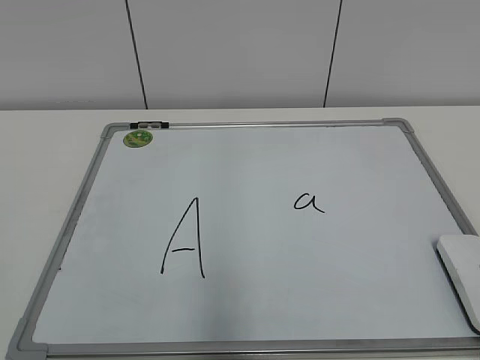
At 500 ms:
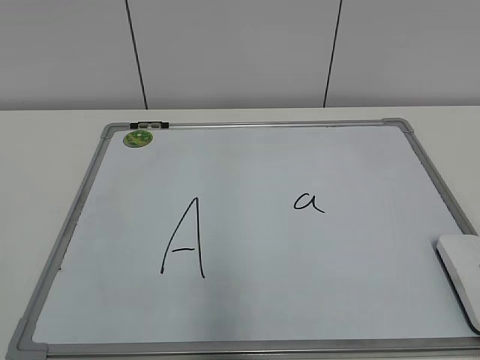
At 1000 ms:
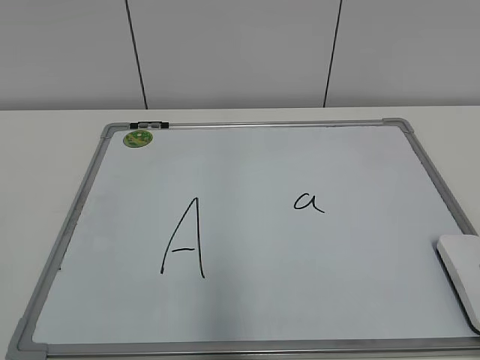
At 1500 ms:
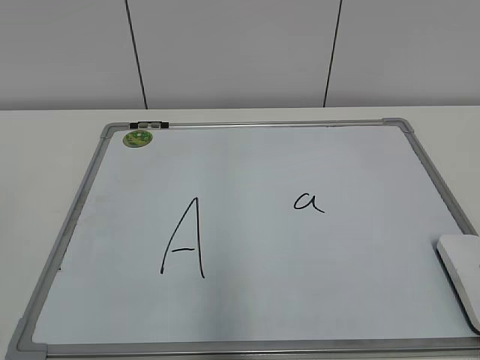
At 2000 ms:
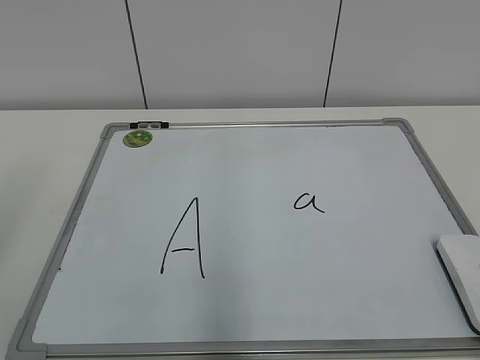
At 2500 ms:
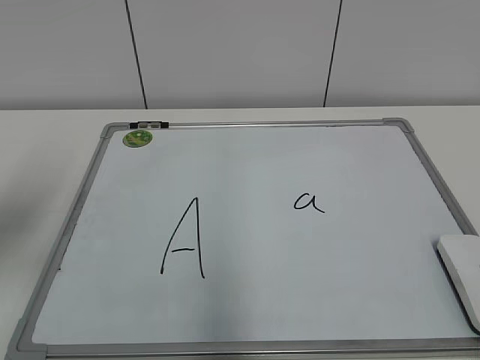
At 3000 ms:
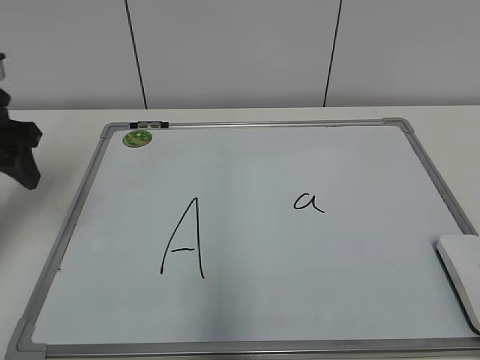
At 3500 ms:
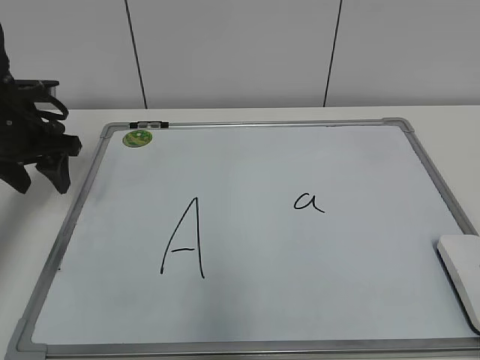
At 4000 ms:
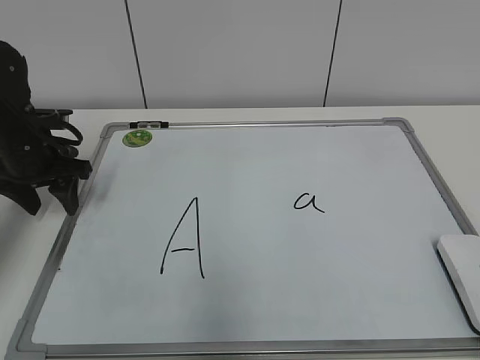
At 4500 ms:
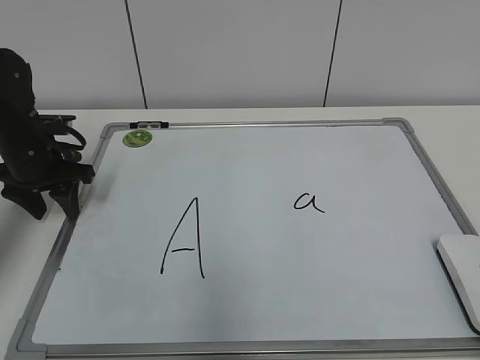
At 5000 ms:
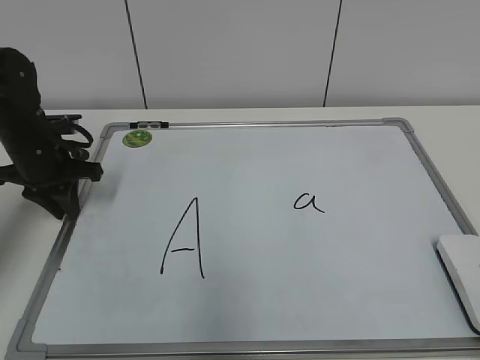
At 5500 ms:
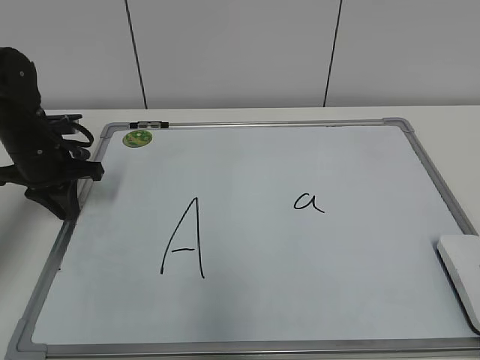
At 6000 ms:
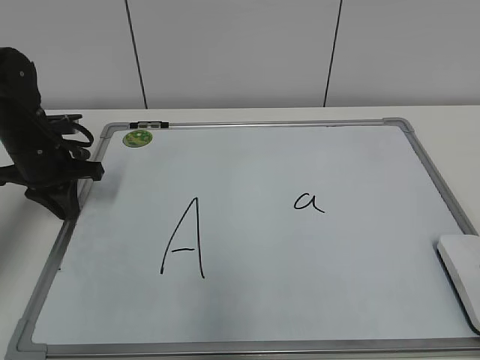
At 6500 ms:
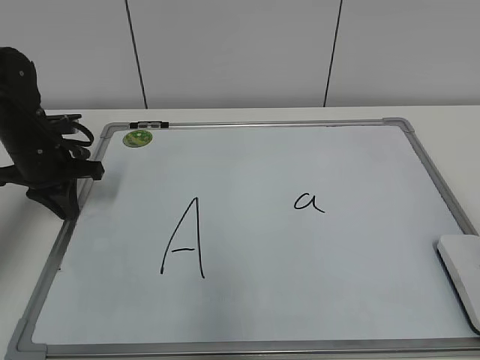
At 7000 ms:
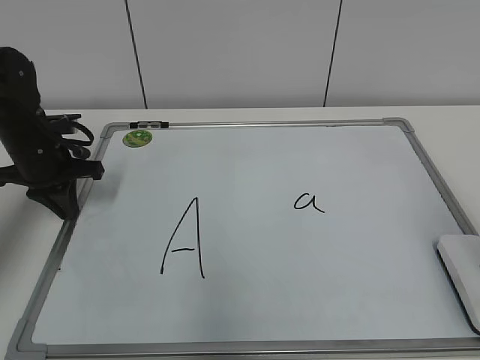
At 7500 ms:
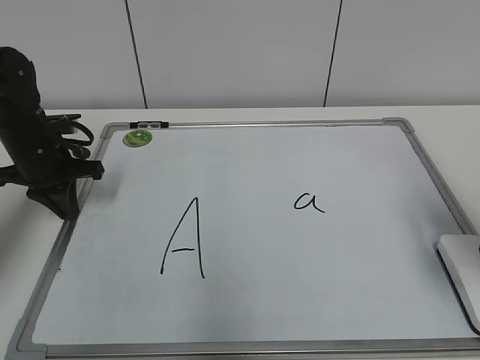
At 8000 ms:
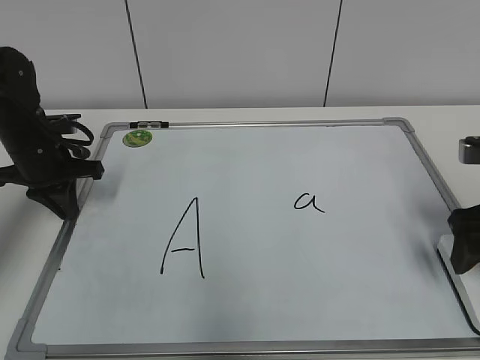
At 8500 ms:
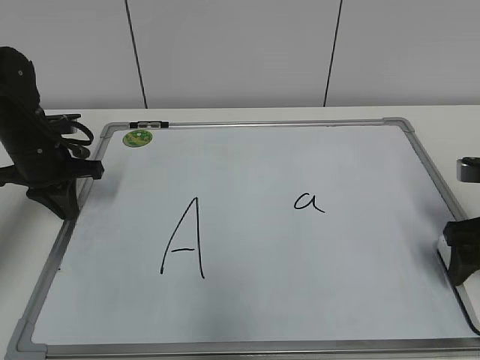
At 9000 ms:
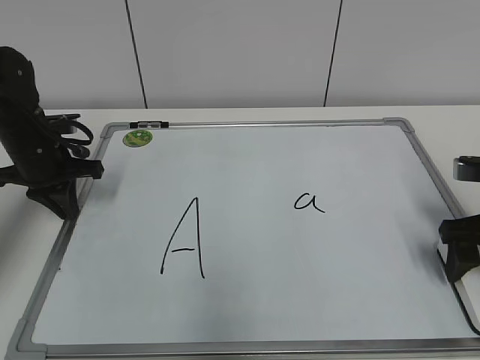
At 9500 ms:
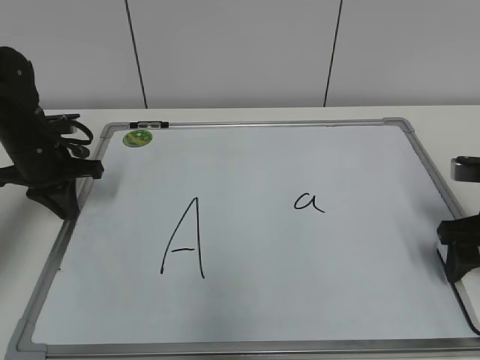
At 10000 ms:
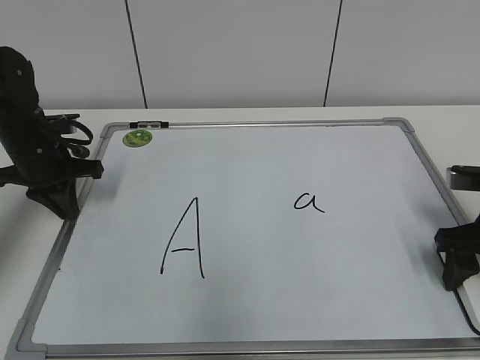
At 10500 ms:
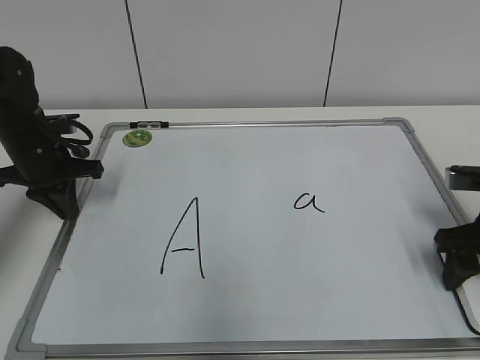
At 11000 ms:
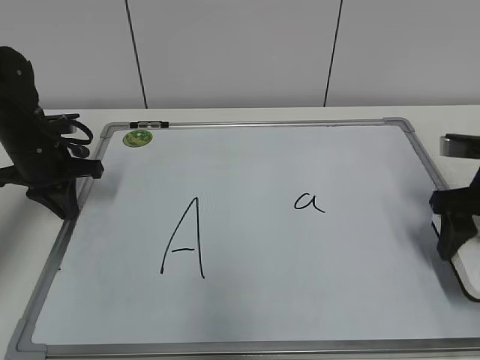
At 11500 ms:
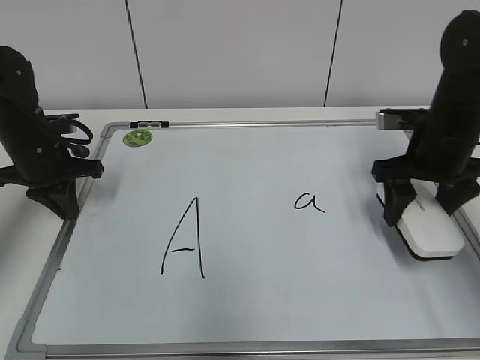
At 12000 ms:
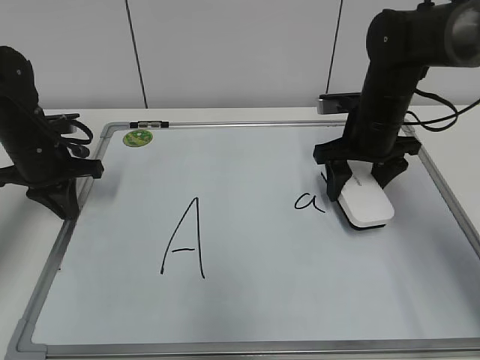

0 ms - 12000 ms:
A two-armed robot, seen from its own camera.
Task of the whole recording: pick up the eraser on the blackboard and erase the letter "a".
Step, 0 ms - 5500 ms: Hold the drawing board steady with your left hand.
Step, 6000 ms - 9000 ms: Grab the eraser with your right hand.
2000 ms - 4000 ms: The left gripper shifts approximately 35 cm forward and downward.
4000 ms - 6000 ms: The left gripper closes up.
6000 ms - 8000 ms: The right gripper travels forward by about 25 cm, and opens.
8000 ms - 10000 ms: The right gripper is displaced downward by roughly 5 cm, and closes up.
10000 ms - 12000 ms: The right gripper is displaced forward and to the left by roughly 15 cm.

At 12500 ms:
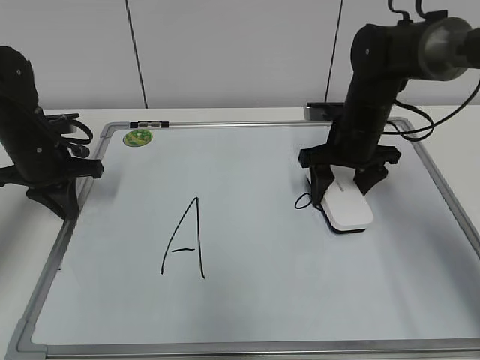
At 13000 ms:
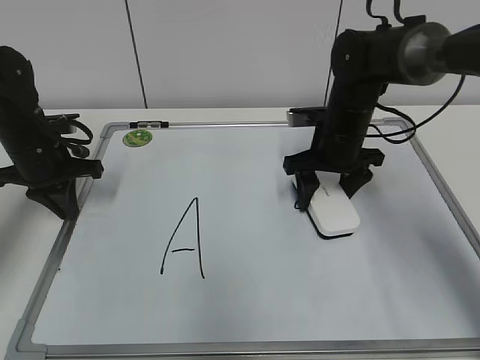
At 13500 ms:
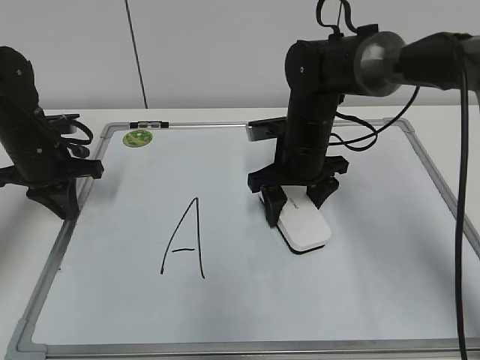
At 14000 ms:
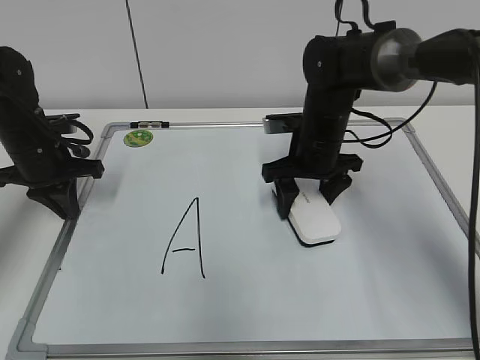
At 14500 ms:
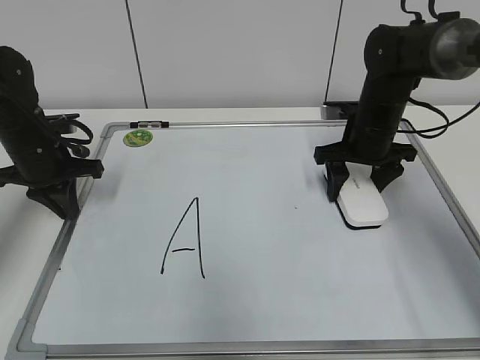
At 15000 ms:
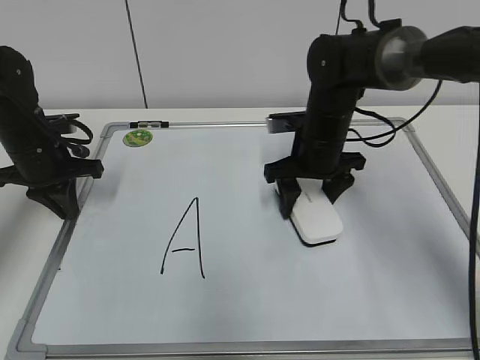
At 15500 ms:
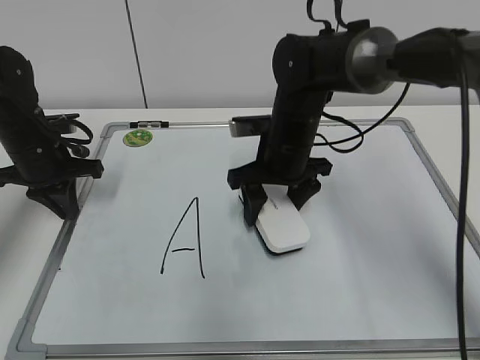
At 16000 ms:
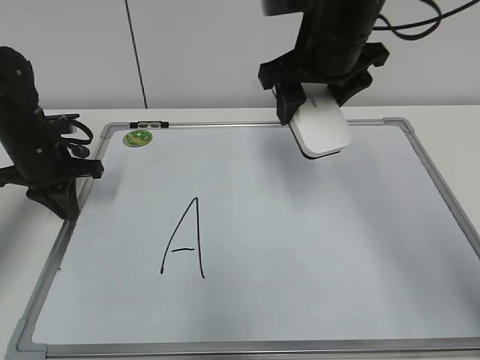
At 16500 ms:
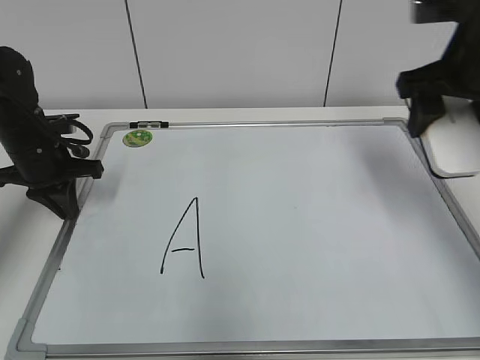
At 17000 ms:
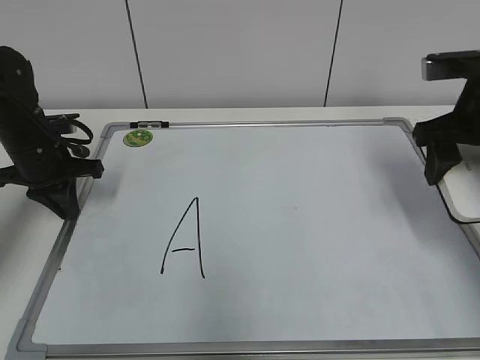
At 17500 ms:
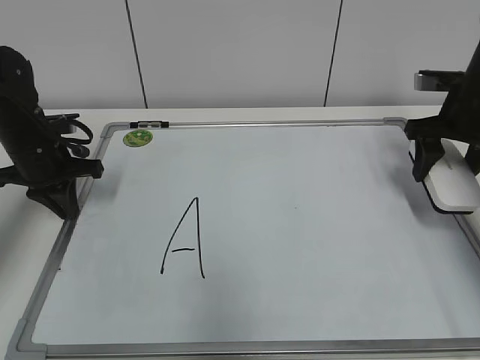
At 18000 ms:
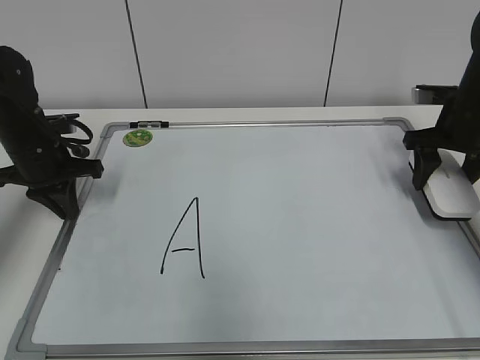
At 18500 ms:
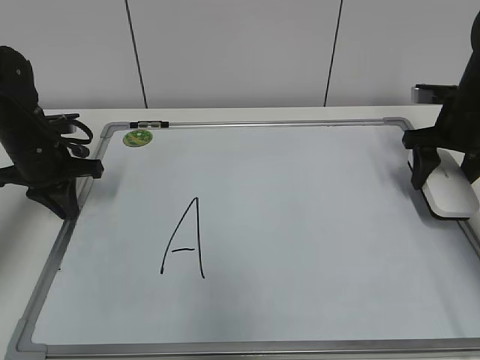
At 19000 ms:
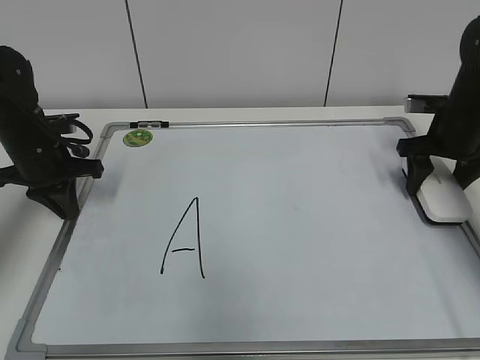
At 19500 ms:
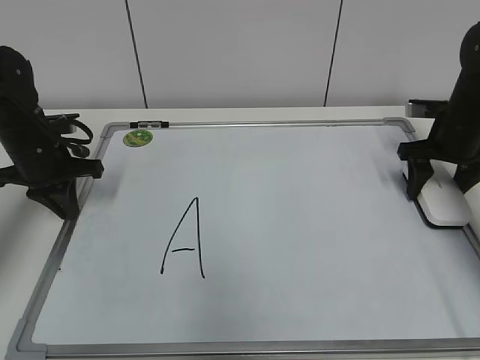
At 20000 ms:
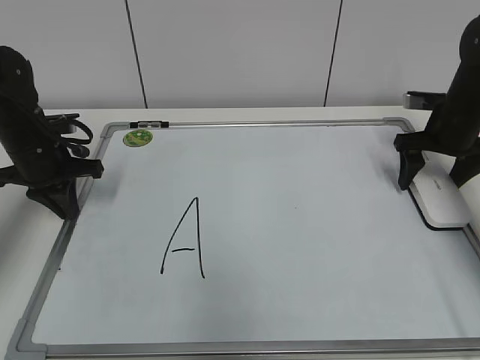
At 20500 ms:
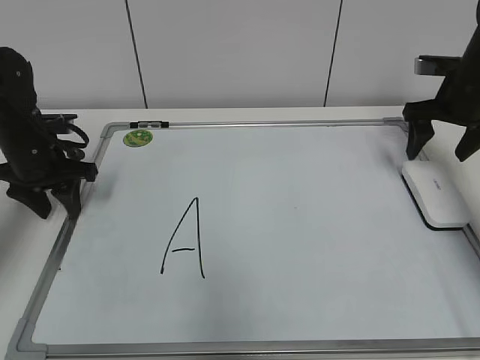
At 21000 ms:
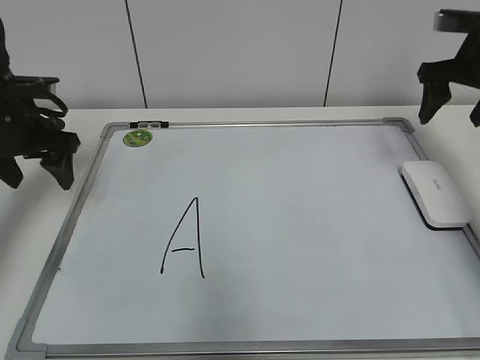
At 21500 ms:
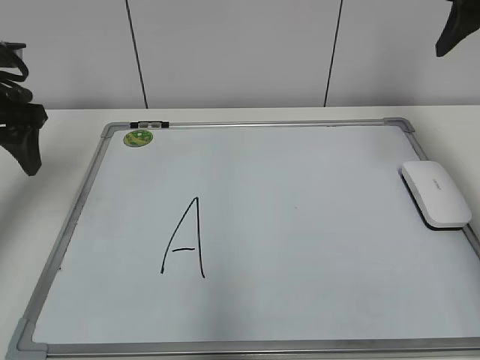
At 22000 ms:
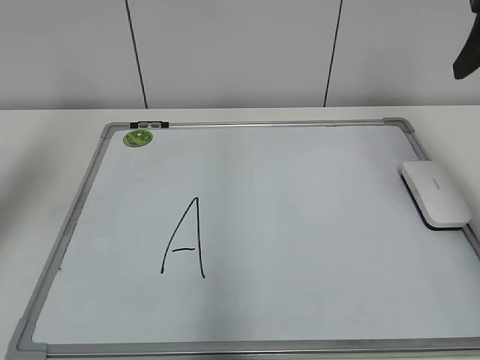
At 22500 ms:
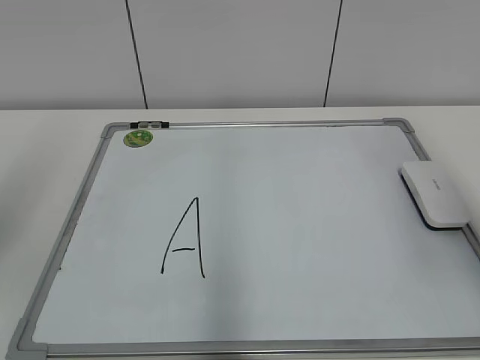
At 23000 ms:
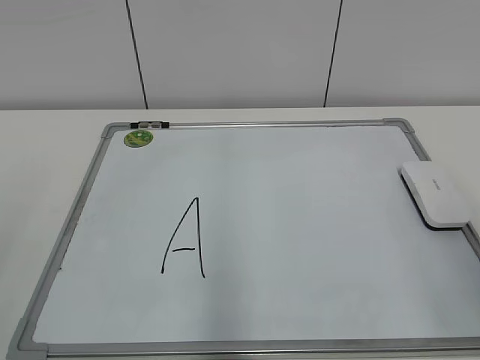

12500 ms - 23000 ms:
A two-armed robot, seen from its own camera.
Task of the whole recording: pick up the eraser on the blackboard and erase the letter "a".
Step, 12500 ms - 14500 ms: Erase the letter a with your right hand.
Step, 15000 ms - 19500 ms: Put down the eraser with your right hand.
12500 ms - 14500 ms: The right gripper travels to the left and back again, approximately 10 cm each way.
14500 ms - 16500 ms: The right gripper goes roughly 20 cm upward and backward.
16500 ms - 19000 ms: The right gripper heads downward, forward and to the right, covering roughly 20 cm.
19000 ms - 21000 ms: The right gripper is displaced upward by roughly 10 cm, and opens its fingers, while the left gripper heads upward, covering approximately 5 cm, and opens.
21000 ms - 23000 ms: The two grippers go roughly 35 cm backward. The right gripper closes up.

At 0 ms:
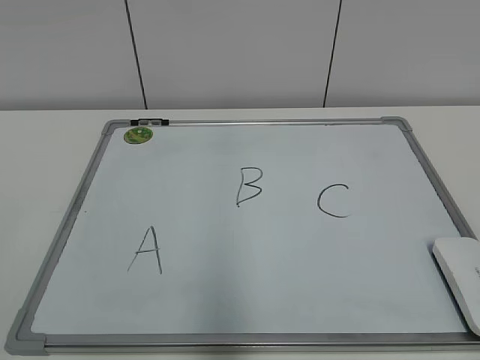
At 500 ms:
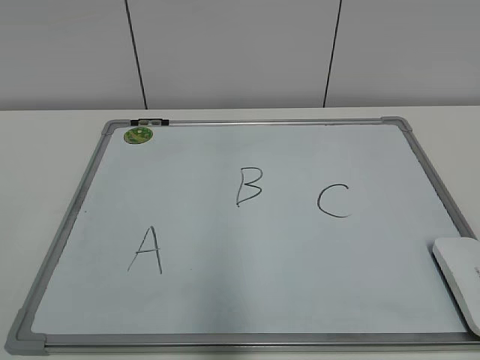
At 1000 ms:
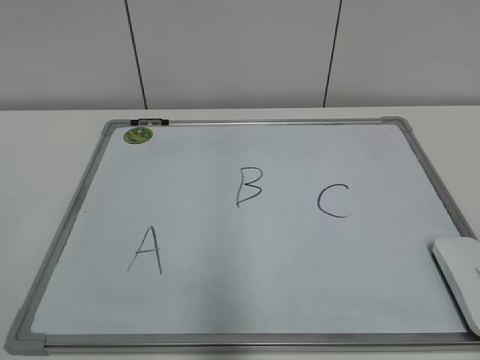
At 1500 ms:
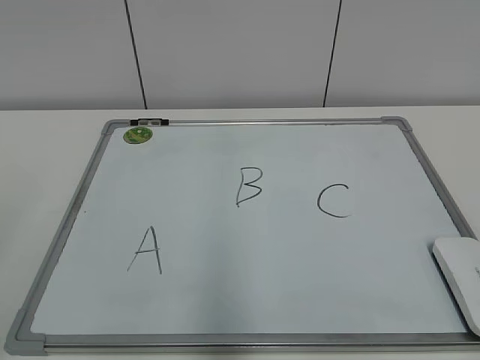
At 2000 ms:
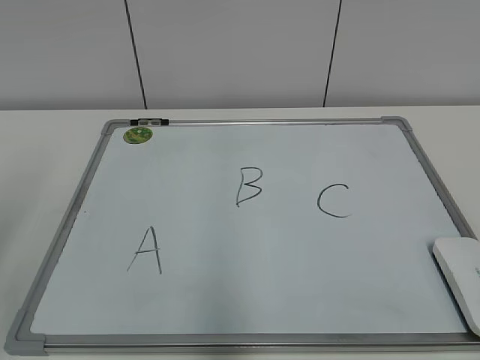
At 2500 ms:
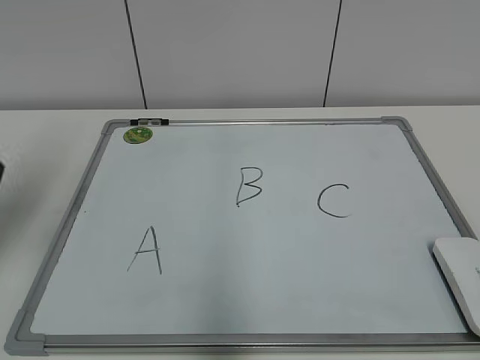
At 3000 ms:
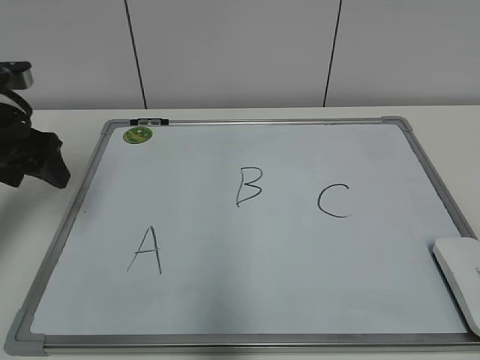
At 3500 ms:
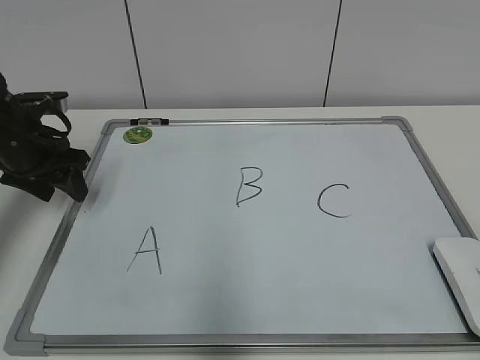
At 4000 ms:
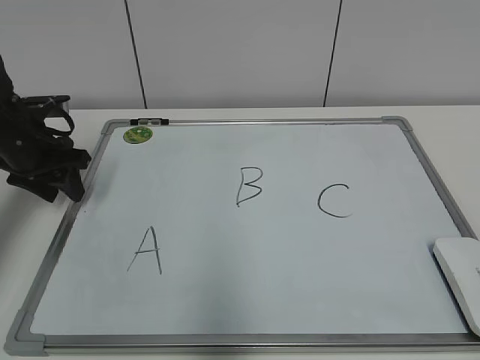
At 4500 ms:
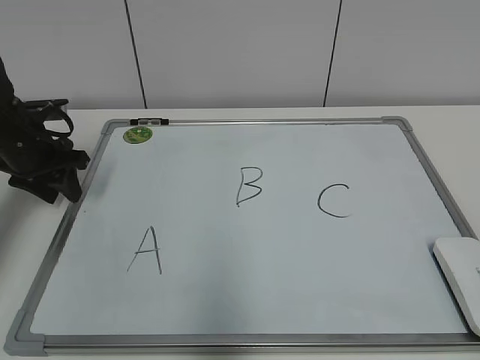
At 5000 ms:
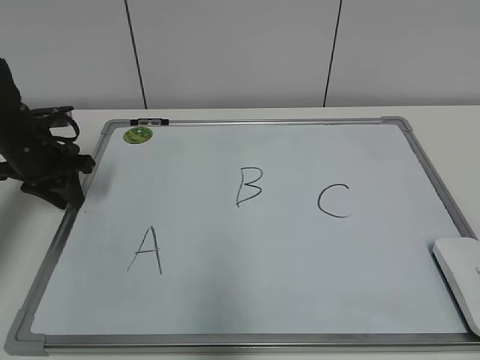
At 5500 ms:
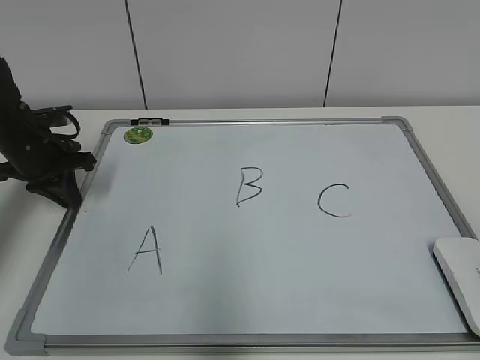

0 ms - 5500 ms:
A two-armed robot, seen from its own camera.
Task of the whole recording: pick up the eraser on the blackboard and erase the letter "B".
Step, 0 ms - 5000 ms: Hold the drawing board steady with your left hand.
2000 ms - 3500 ms: The left gripper travels forward and downward by approximately 25 cm.
3500 ms - 5500 ms: The left gripper ends up about 5 cm from where it was, and closes up.
